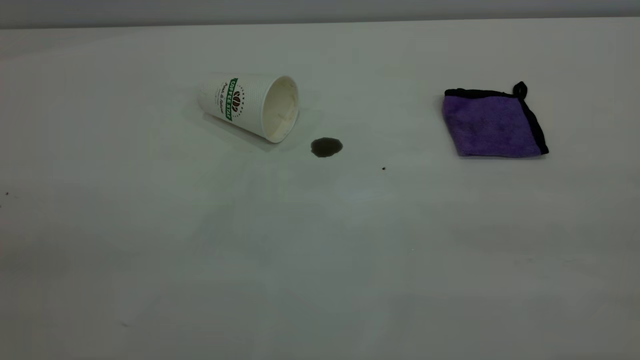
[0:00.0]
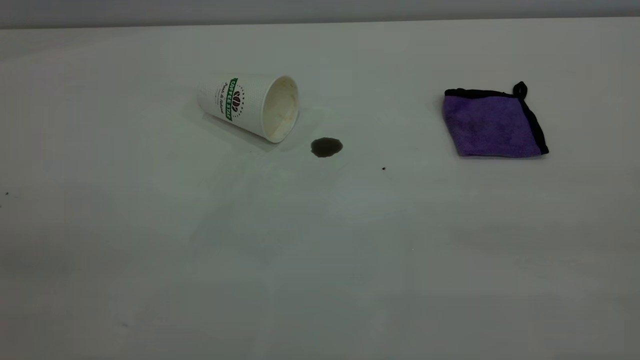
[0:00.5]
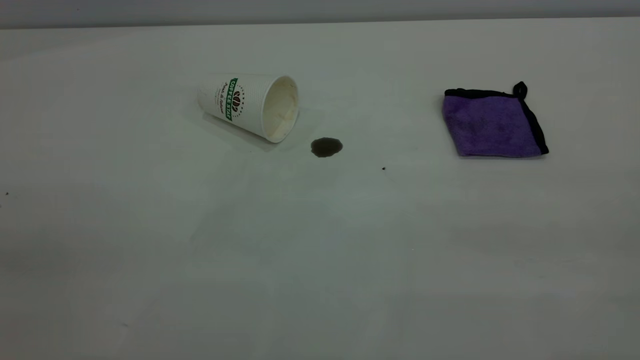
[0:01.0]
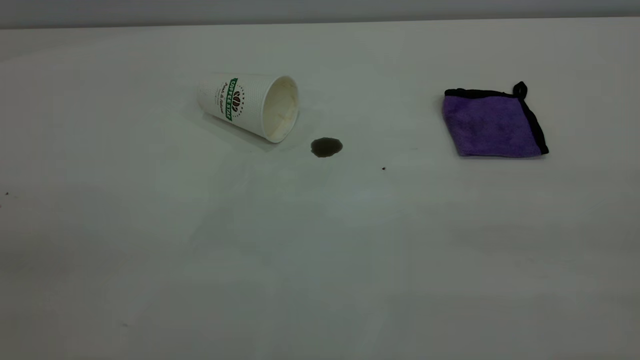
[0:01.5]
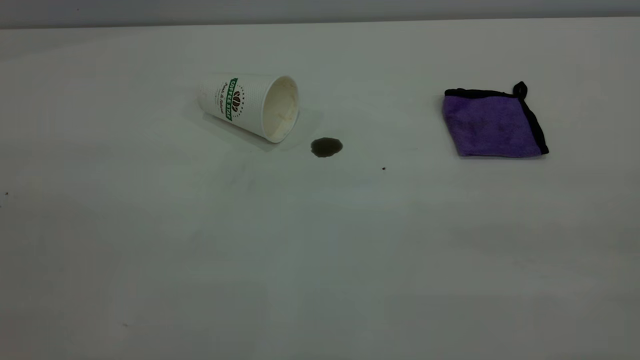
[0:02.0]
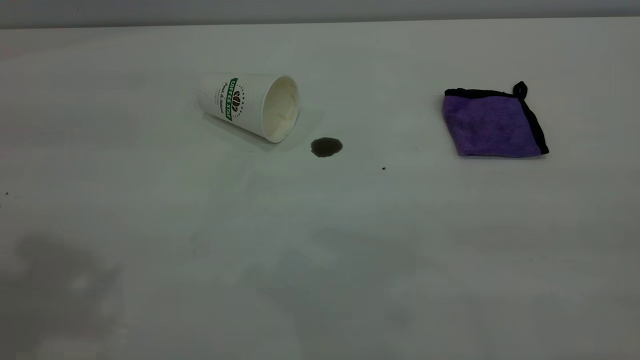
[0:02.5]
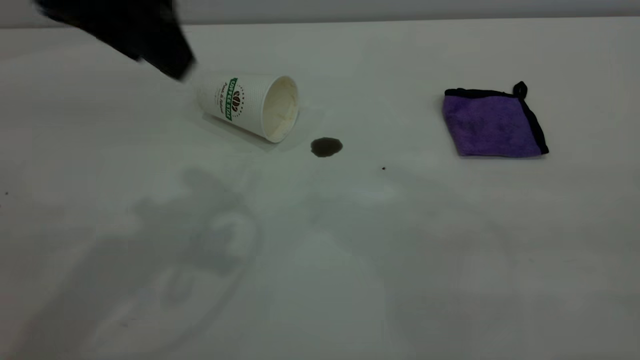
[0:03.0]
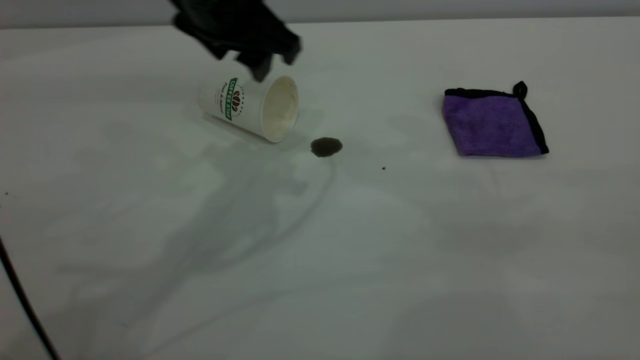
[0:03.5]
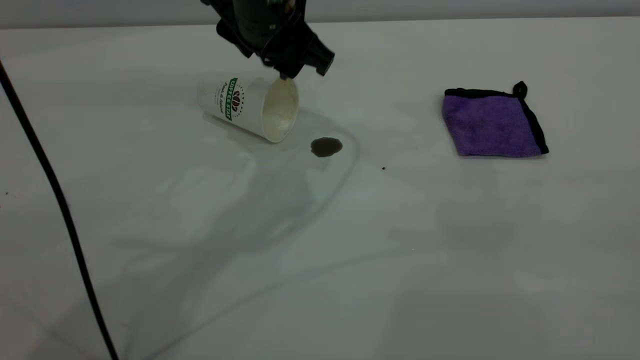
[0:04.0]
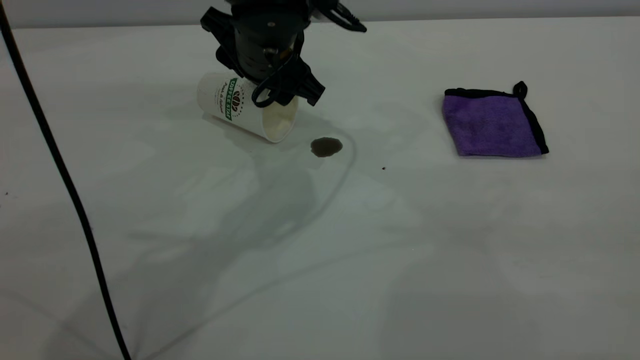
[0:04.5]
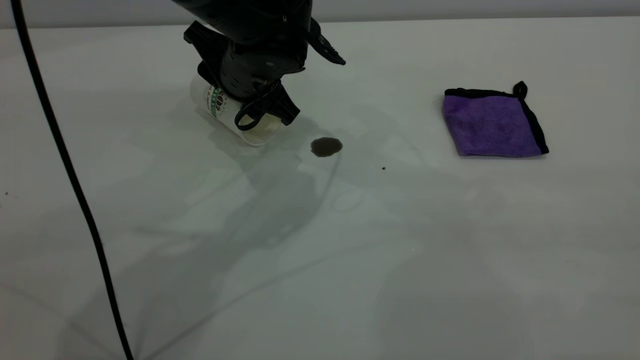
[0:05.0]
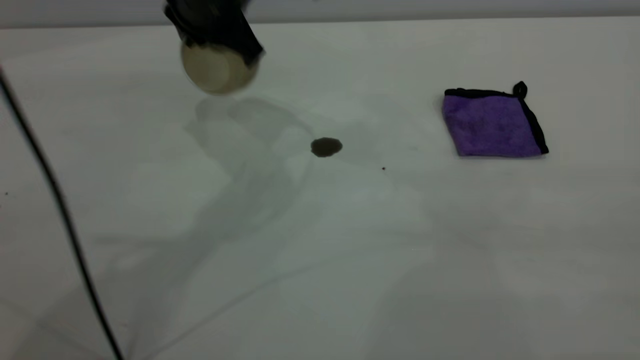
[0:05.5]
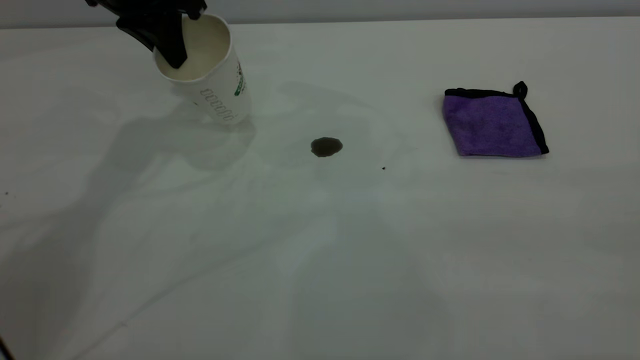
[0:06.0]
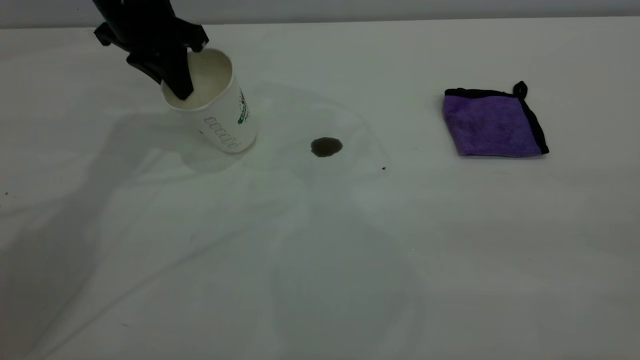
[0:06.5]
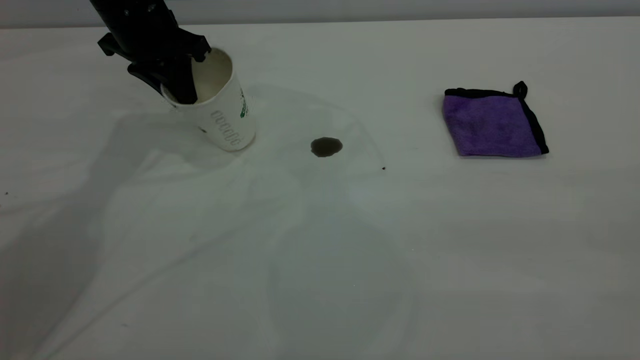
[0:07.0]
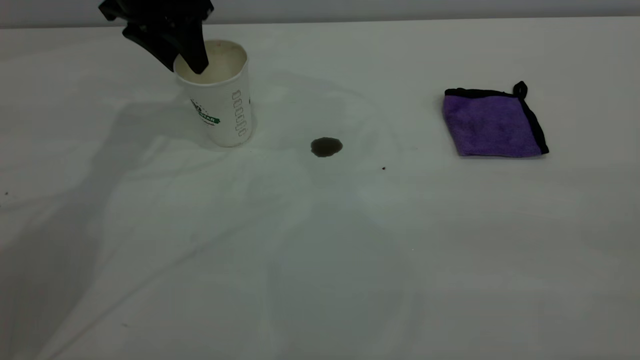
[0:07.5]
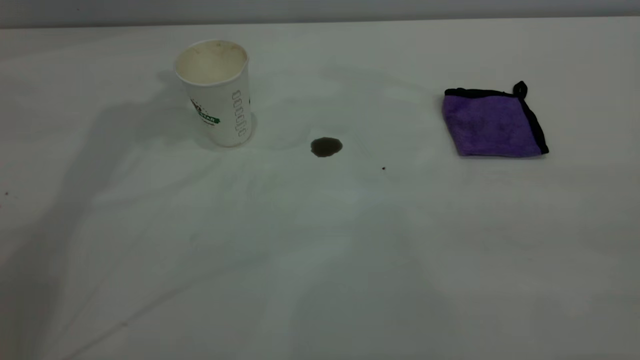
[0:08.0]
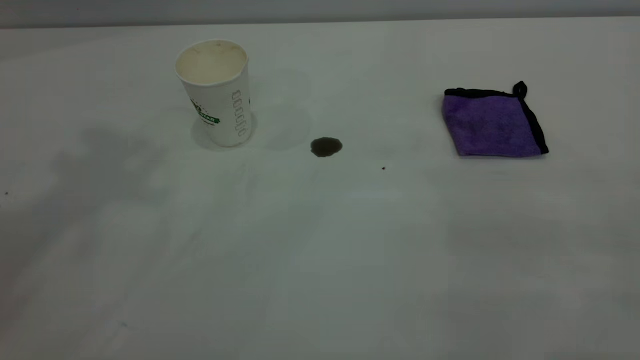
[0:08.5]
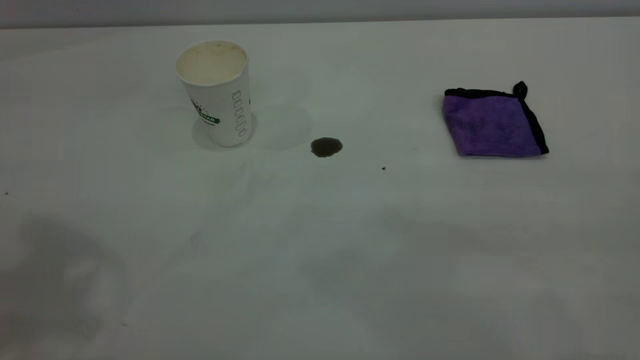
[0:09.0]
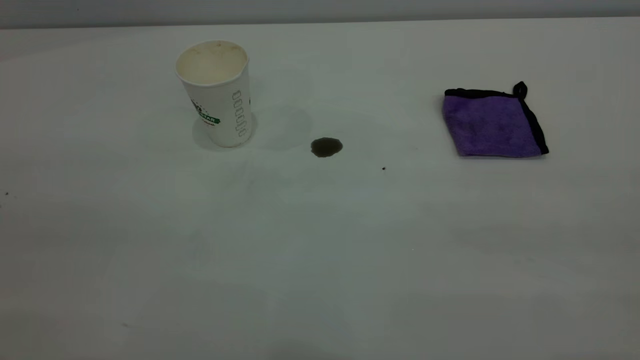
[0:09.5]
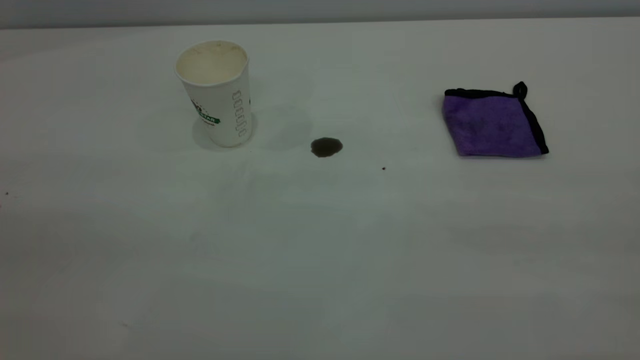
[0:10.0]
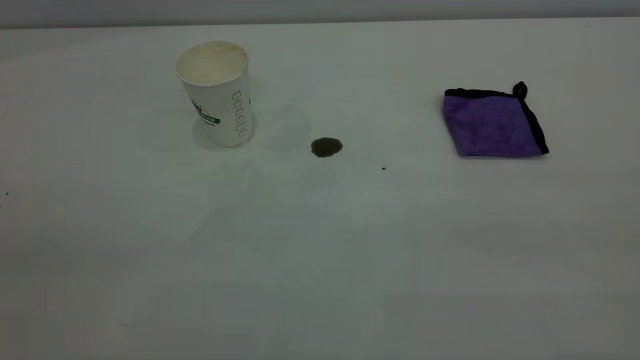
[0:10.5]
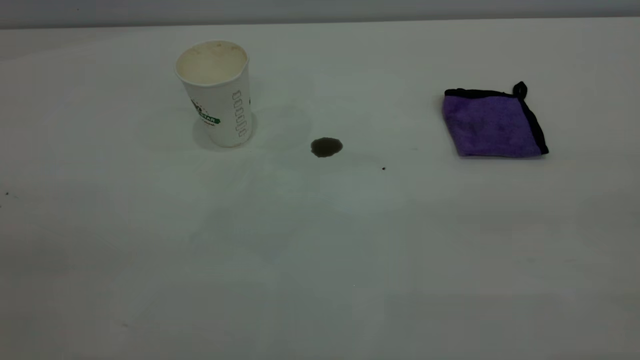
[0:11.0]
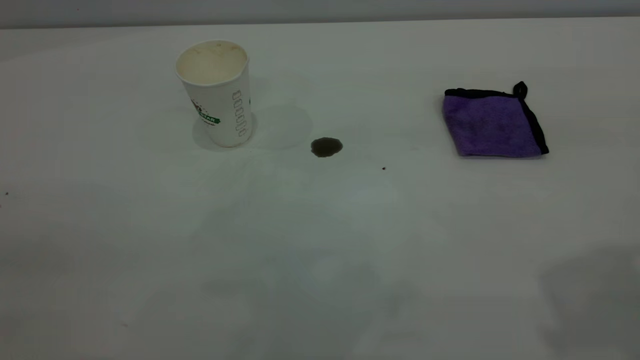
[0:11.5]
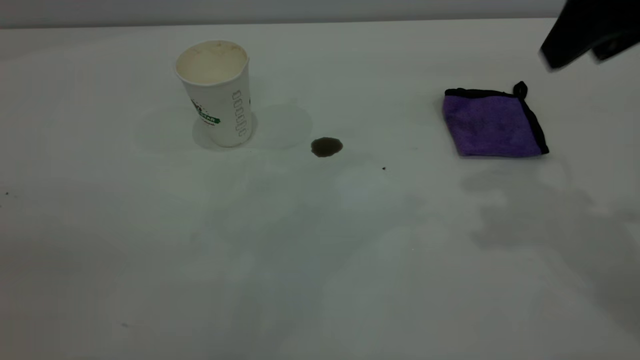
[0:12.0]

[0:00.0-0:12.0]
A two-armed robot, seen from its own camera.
Task of the whole recording: the left gripper pick up the fallen cup and place it upright, the right gripper grasp the purple rag and wipe the coffee stain on the table, the right gripper put the purple rag back in its original position.
Step, 0:00.0 to 0:07.5: Stand the paper cup upright.
0:02.0 to 0:04.0: The left gripper heads forward, to the right and downward, covering roughly 50 cm.
0:04.0 to 0:06.0: The left gripper is displaced to the left by about 15 cm, and closes.
0:06.0 to 0:08.0: The left gripper shifts about 15 cm upward, and opens up.
0:10.0 to 0:12.0: The right gripper travels forward by approximately 30 cm, and opens.

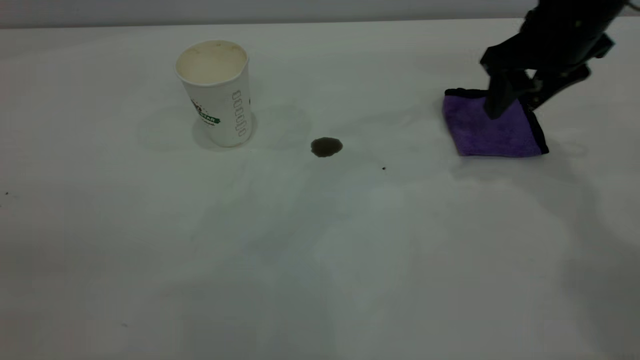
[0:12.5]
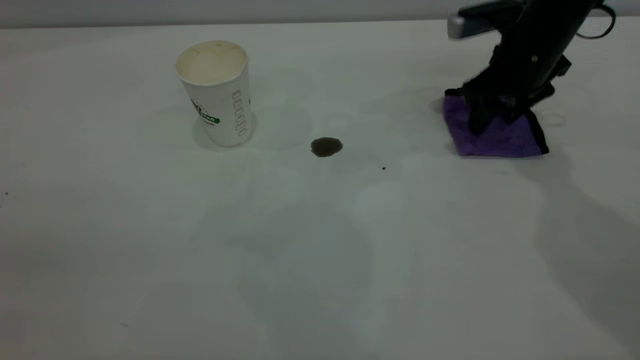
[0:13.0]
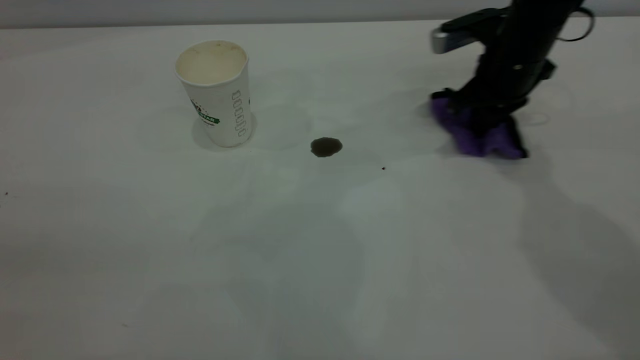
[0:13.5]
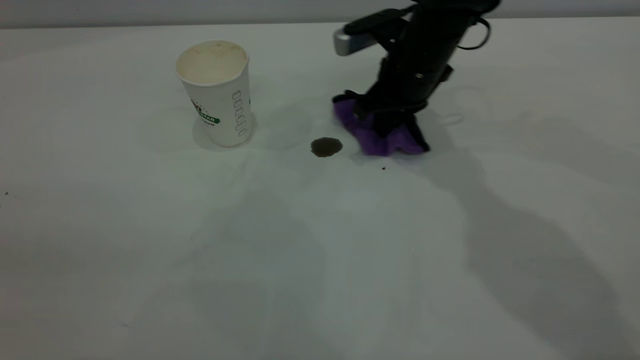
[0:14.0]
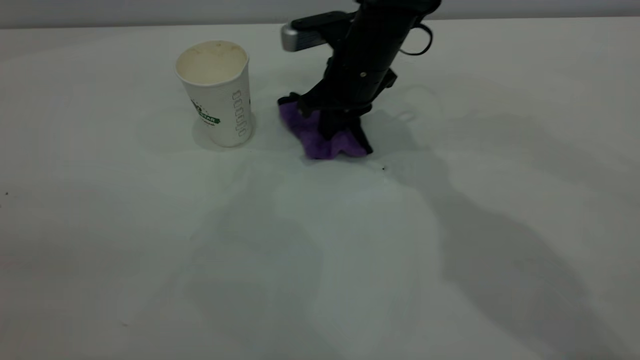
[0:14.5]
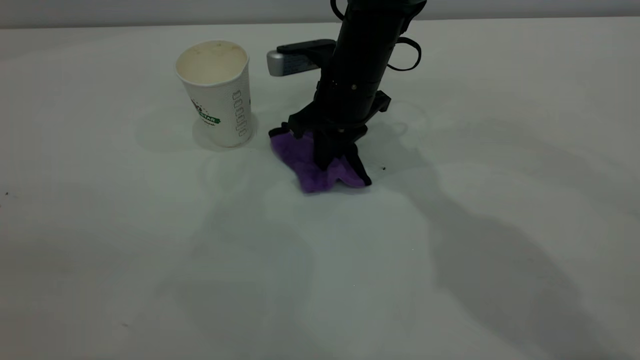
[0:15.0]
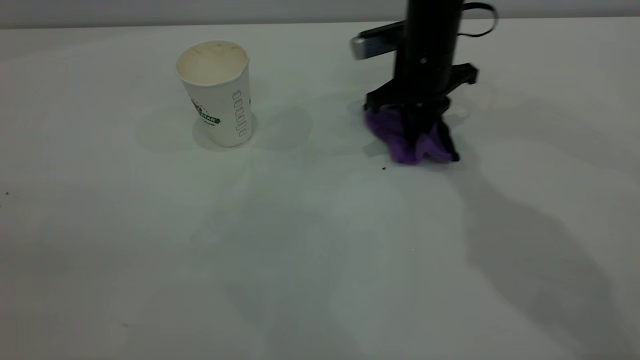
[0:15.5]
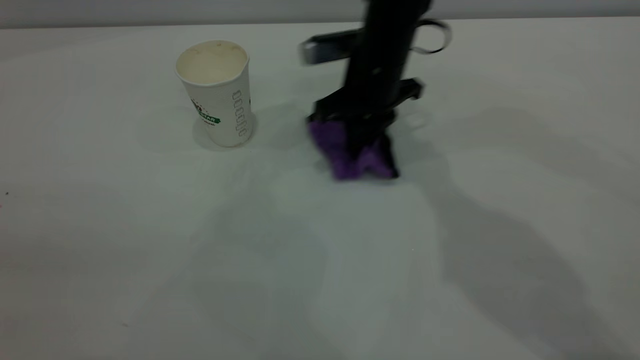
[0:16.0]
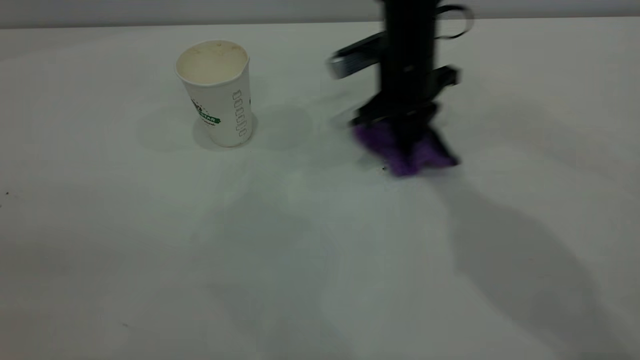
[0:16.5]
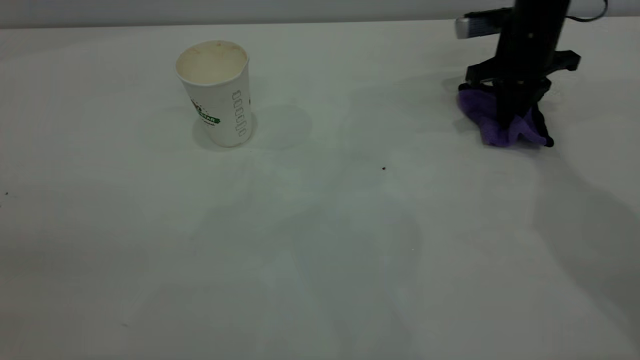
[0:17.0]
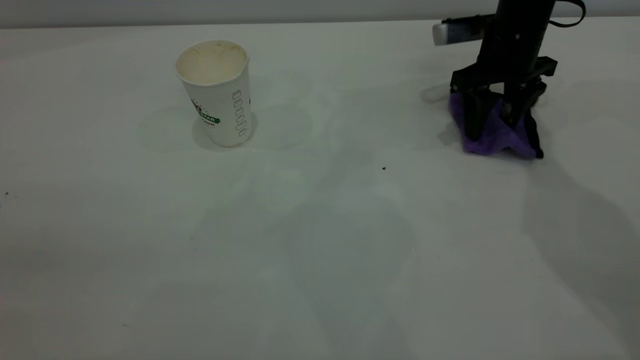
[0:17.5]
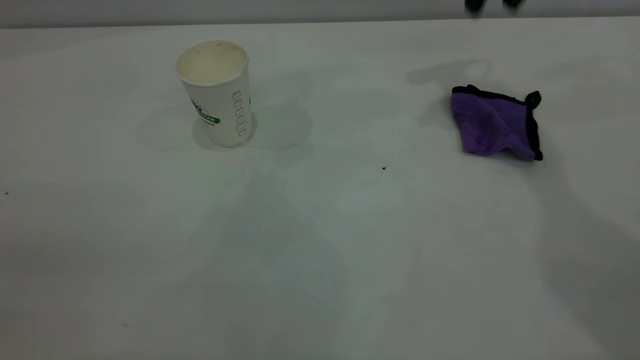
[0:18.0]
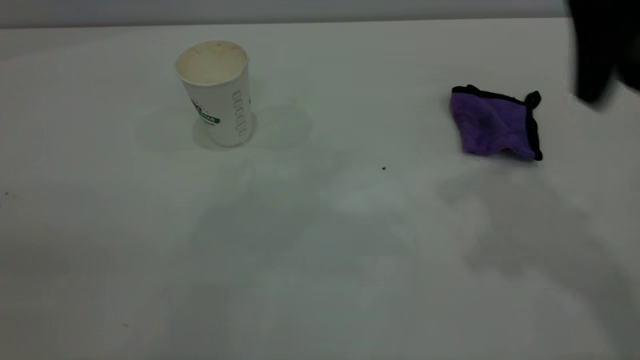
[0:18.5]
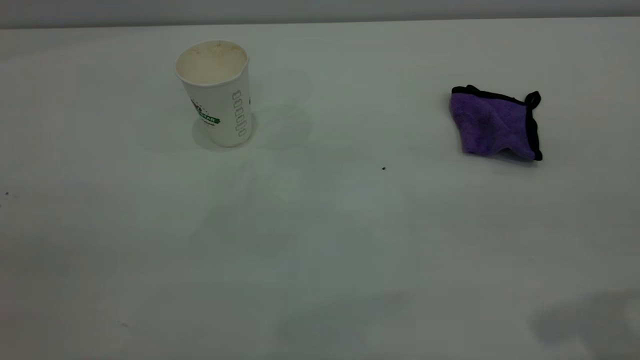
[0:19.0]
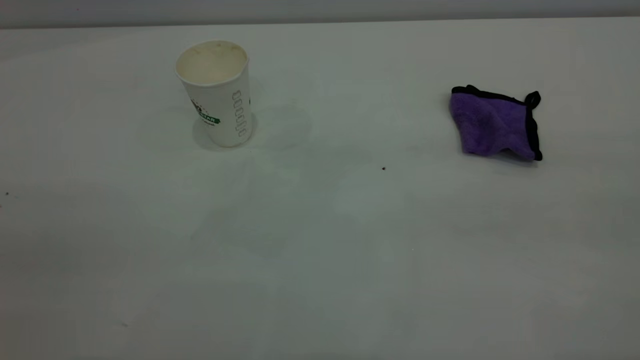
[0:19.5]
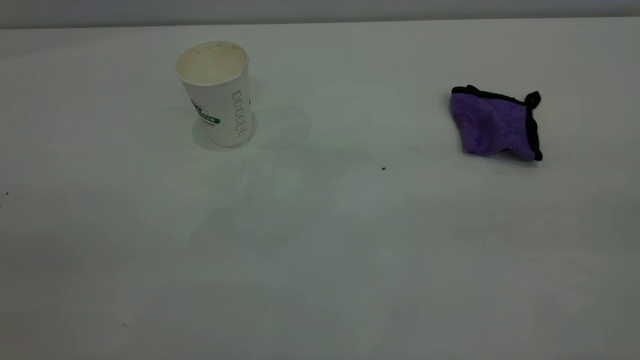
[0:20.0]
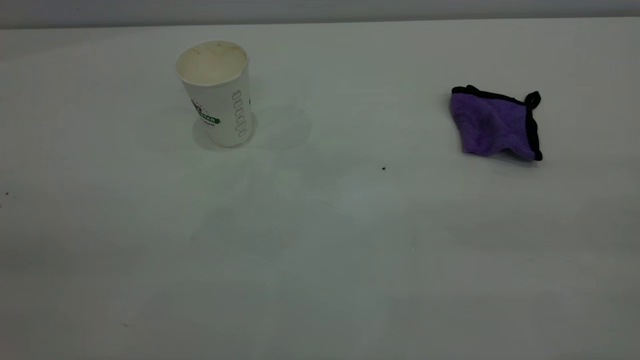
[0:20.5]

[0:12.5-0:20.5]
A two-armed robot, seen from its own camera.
Task of the whole recording: the left gripper pick up the fallen cup and place it upright, the right gripper grasp the purple rag and wipe the coffee stain on the table, the right gripper put the purple rag back in its original position.
Step, 0:12.5 to 0:17.5: Wipe the stains off the table with a rag.
0:12.5 to 0:14.5: The right gripper moves to the left, roughly 20 cm, and closes its fingers.
0:14.5 to 0:16.5: The right gripper moves left and right over roughly 10 cm, changing direction 2 times.
0:16.5 to 0:18.5: The right gripper goes about 30 cm upward, backward and to the right, and opens up.
0:18.5 to 0:20.5: The right gripper moves backward, roughly 30 cm.
